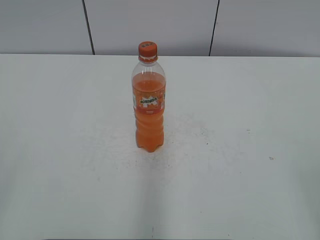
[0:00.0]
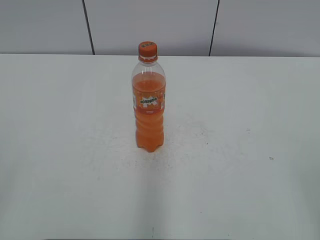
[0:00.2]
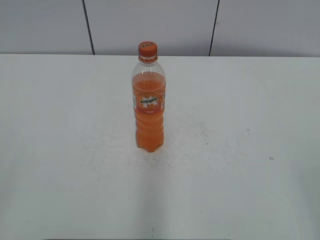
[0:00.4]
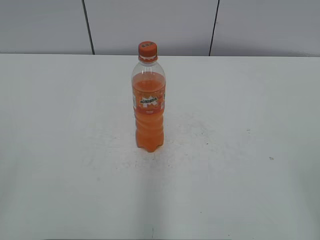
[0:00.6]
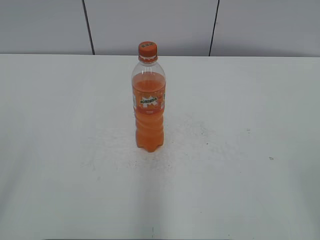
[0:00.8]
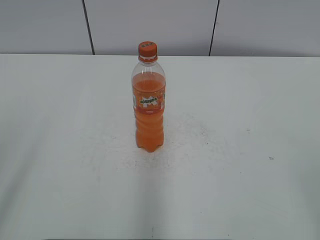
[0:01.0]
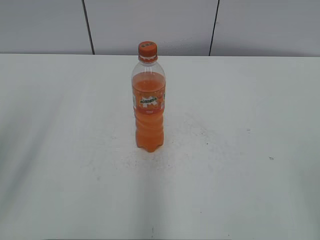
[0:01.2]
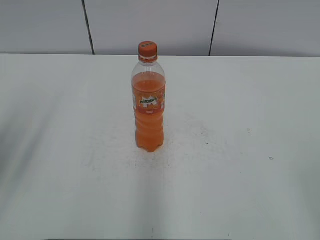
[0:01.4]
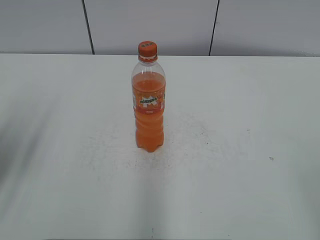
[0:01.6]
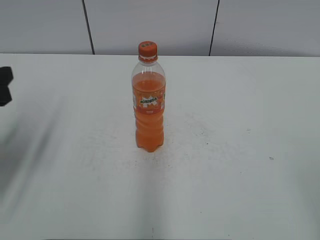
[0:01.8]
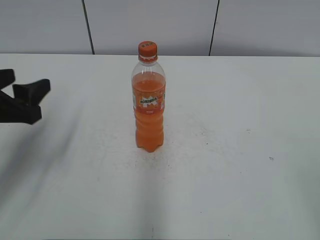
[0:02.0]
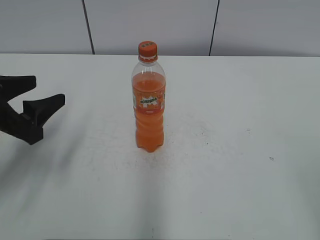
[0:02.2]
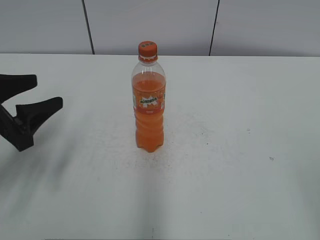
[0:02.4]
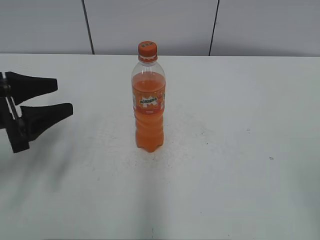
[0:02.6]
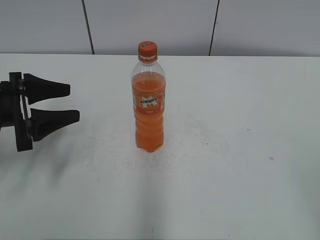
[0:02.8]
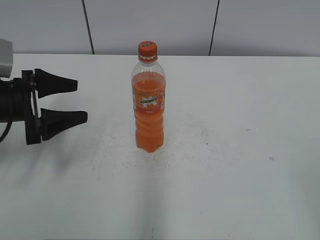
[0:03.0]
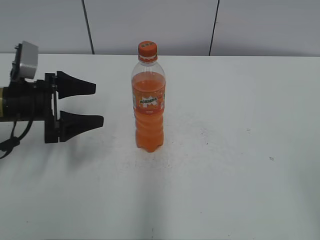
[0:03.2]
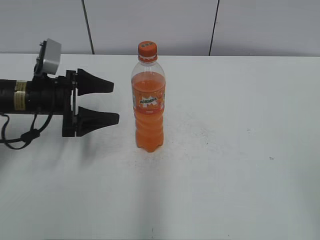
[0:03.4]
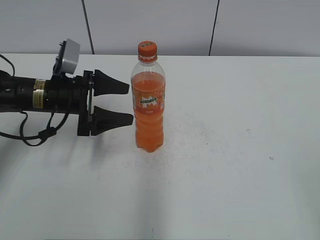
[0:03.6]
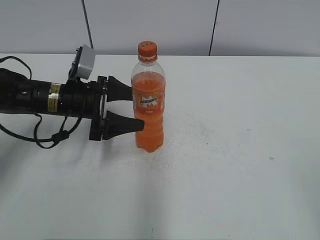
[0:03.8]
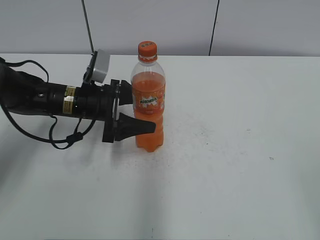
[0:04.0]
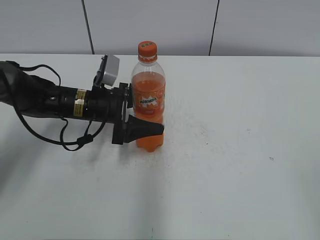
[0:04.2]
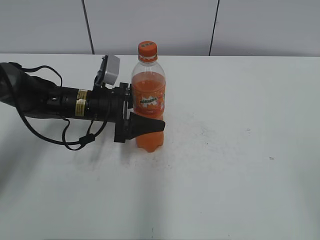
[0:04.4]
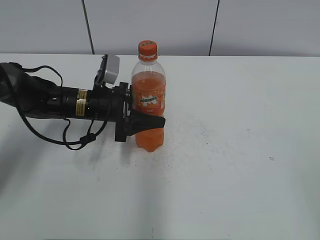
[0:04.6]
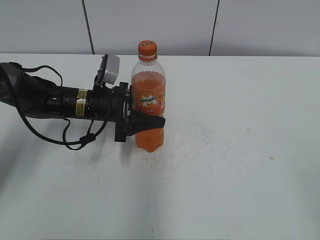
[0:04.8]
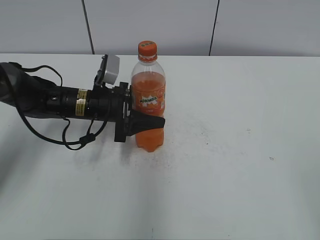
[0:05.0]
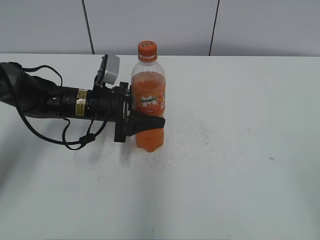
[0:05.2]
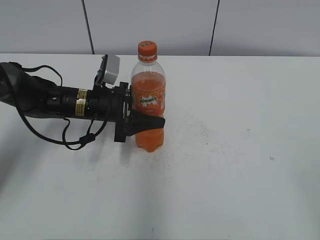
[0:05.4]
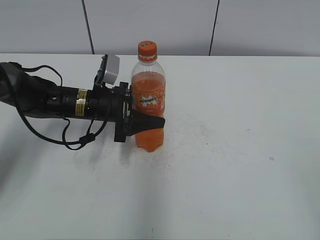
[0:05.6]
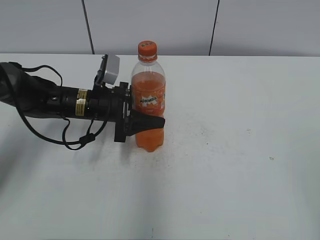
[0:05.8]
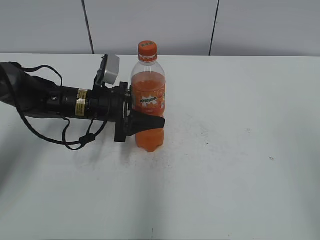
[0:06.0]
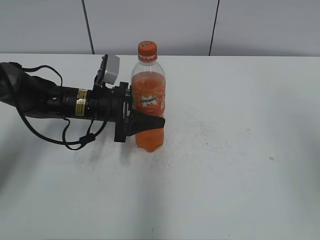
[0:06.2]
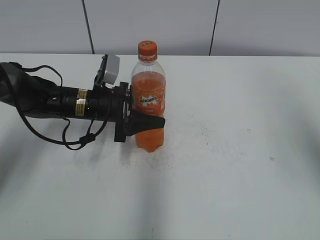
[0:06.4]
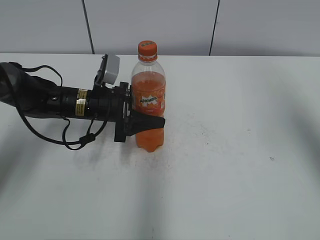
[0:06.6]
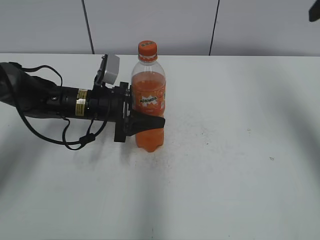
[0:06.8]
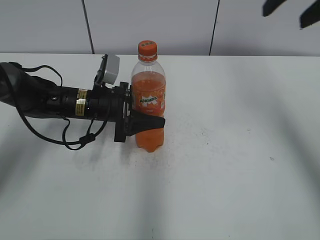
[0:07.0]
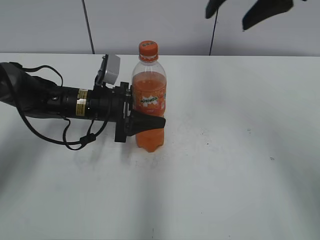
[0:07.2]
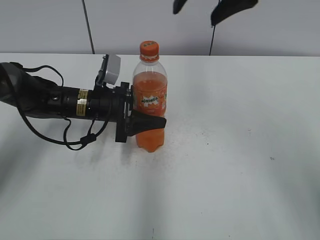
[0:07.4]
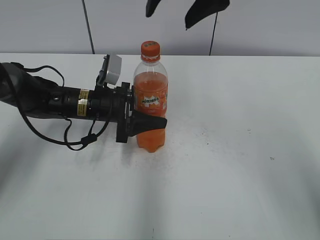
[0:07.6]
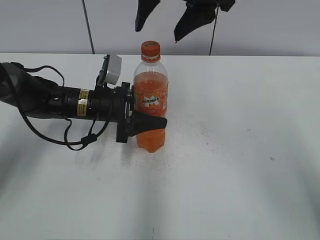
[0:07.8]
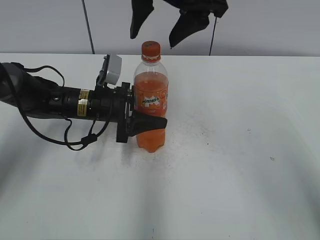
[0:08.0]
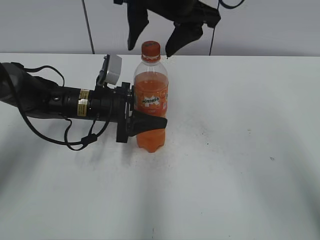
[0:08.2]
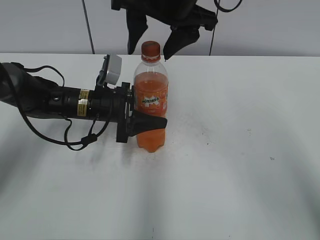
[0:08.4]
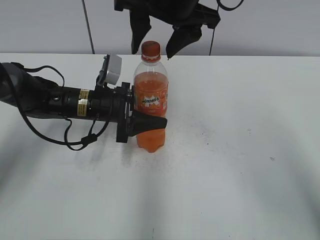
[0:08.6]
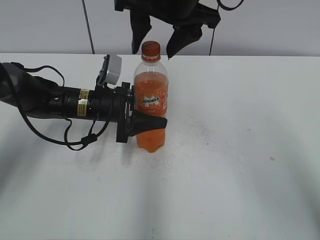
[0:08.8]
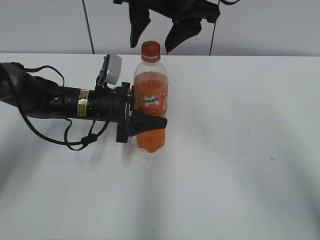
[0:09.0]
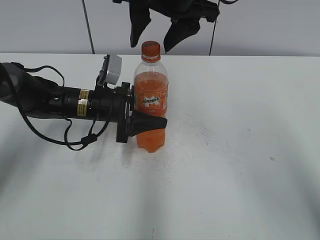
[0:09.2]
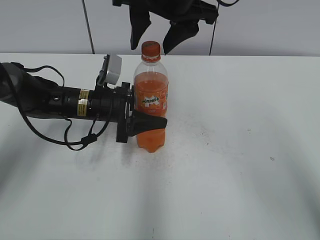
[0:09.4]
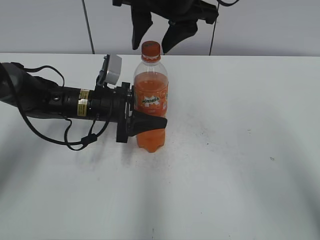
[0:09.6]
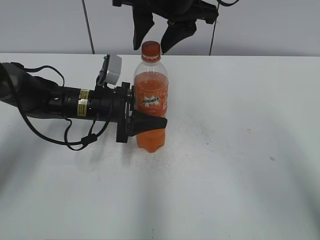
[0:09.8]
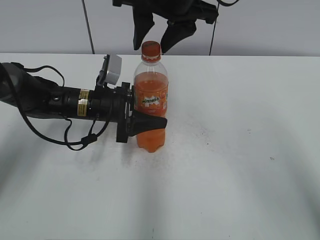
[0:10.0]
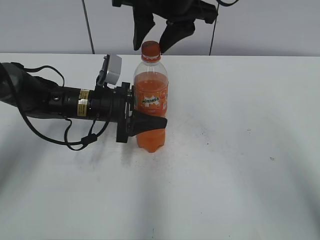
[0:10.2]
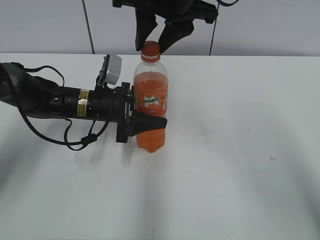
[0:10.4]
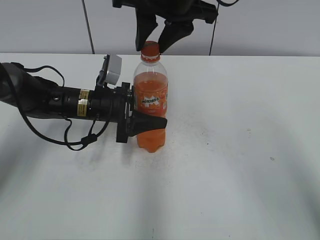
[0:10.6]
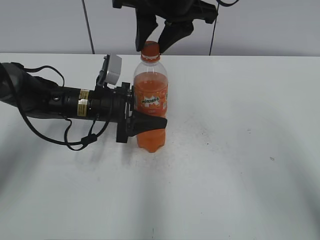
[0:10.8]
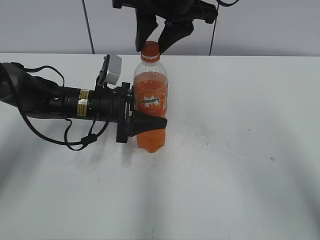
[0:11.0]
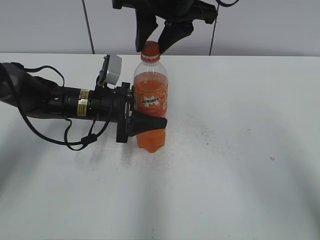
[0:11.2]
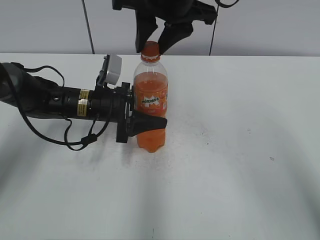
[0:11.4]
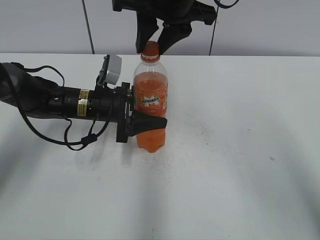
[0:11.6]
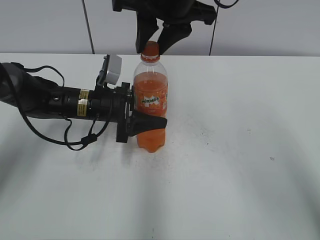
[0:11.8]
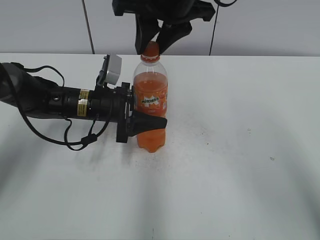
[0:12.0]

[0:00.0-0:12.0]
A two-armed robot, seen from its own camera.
Step, 0:00.0 to 0:04.8: Grab the Mirinda with the left hand.
0:01.6 to 0:03.0: The left gripper shifts about 15 cm forward and downward.
0:03.0 to 0:04.4: The left gripper goes about 15 cm to the right, forward and downward, and opens, then closes once more.
0:06.0 to 0:07.6: The right gripper moves forward and to the left, approximately 40 cm.
0:07.6 to 0:09.0: The right gripper moves approximately 5 cm.
0:09.0 to 0:10.4: The right gripper closes its fingers.
0:10.4 to 0:12.0: There are only small adjustments of the grippers.

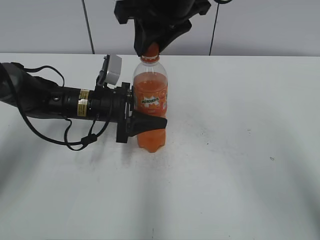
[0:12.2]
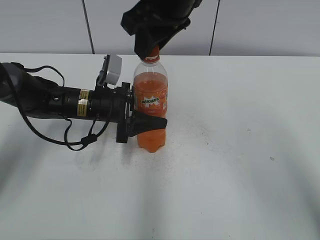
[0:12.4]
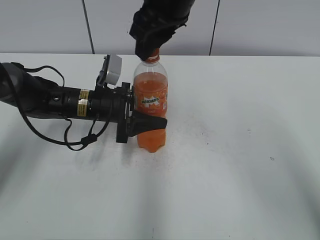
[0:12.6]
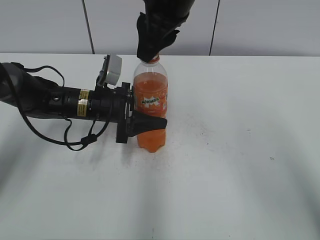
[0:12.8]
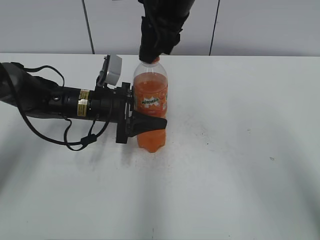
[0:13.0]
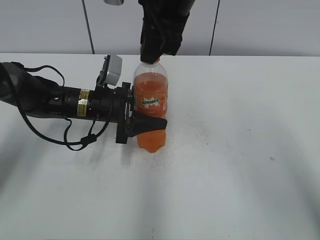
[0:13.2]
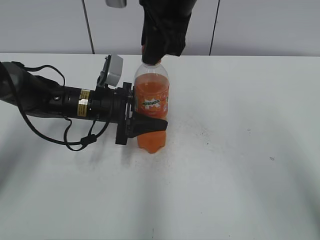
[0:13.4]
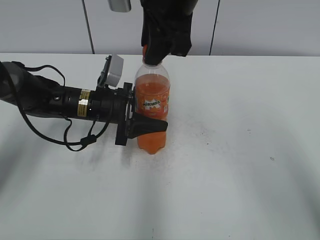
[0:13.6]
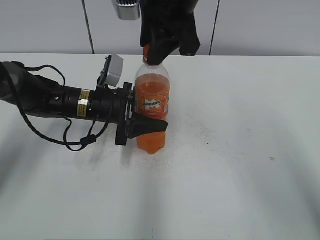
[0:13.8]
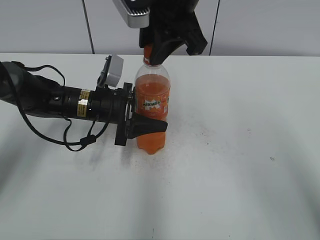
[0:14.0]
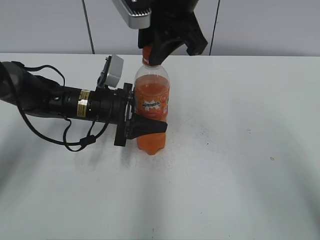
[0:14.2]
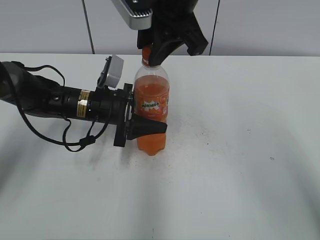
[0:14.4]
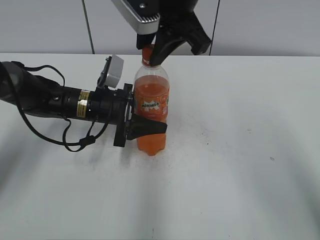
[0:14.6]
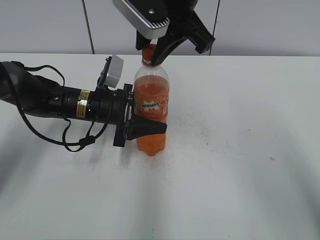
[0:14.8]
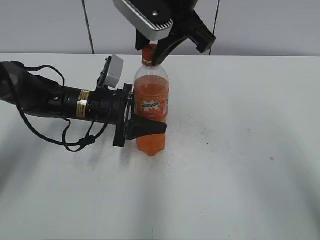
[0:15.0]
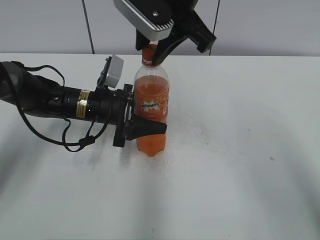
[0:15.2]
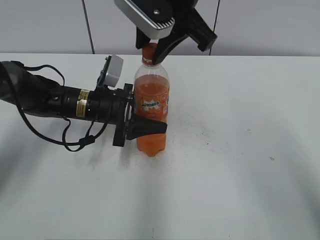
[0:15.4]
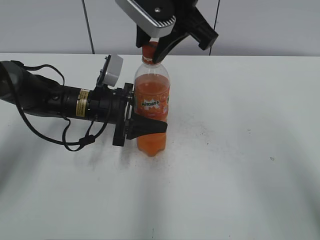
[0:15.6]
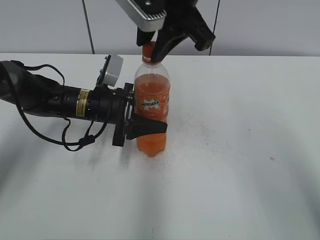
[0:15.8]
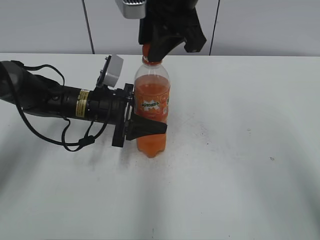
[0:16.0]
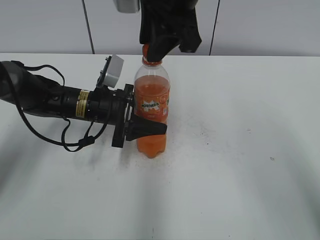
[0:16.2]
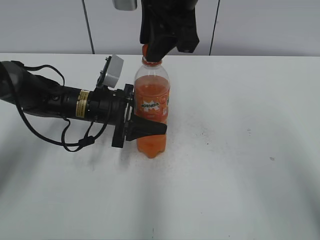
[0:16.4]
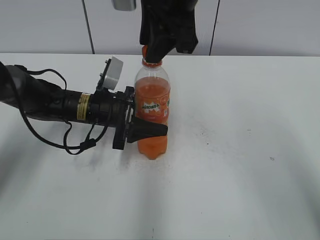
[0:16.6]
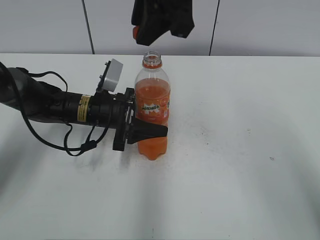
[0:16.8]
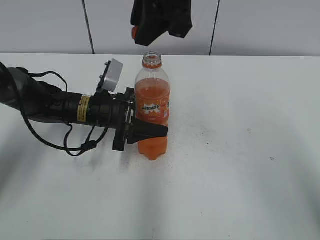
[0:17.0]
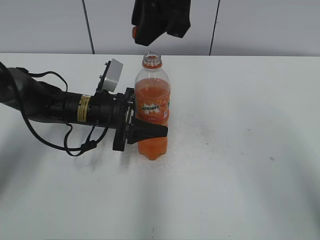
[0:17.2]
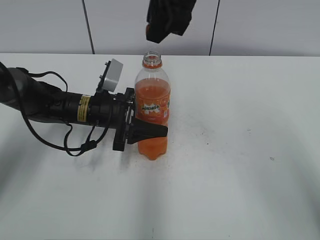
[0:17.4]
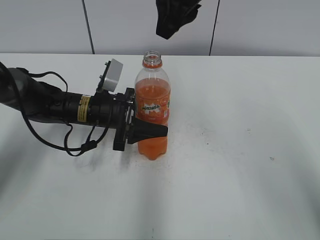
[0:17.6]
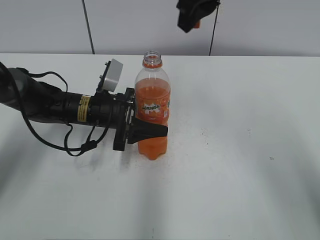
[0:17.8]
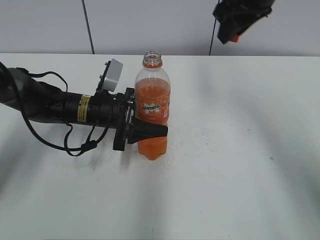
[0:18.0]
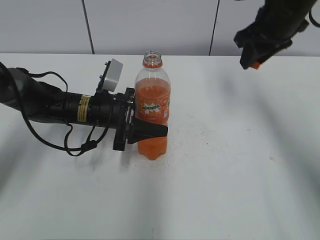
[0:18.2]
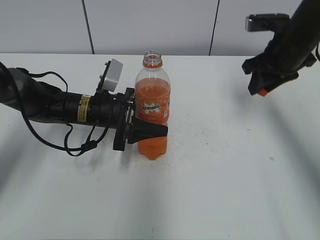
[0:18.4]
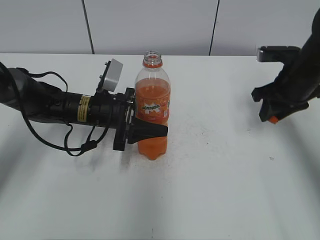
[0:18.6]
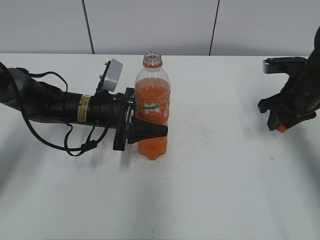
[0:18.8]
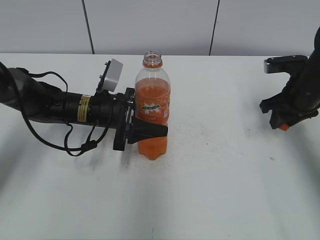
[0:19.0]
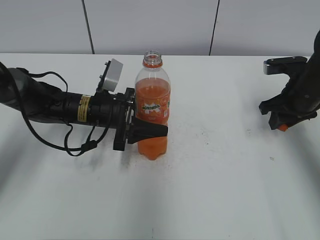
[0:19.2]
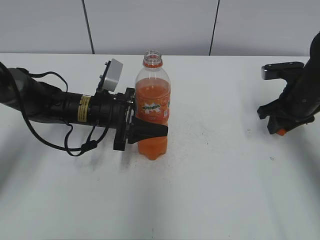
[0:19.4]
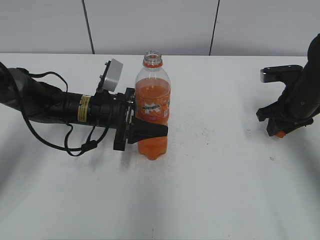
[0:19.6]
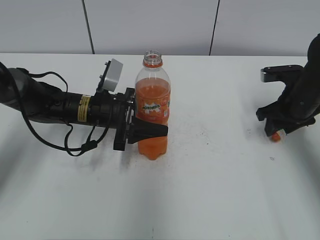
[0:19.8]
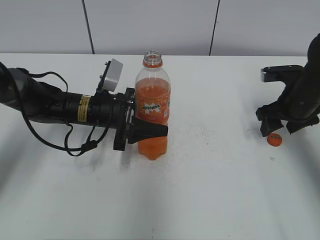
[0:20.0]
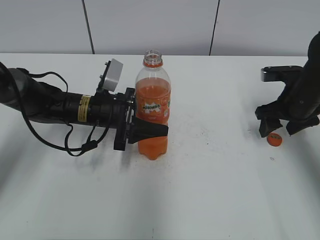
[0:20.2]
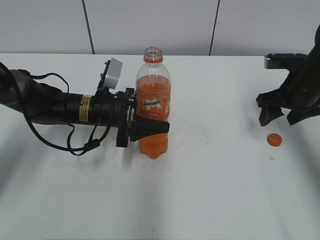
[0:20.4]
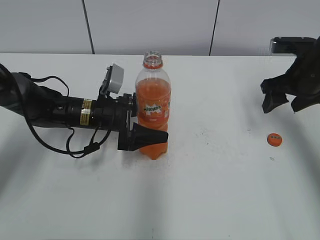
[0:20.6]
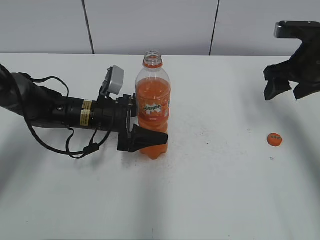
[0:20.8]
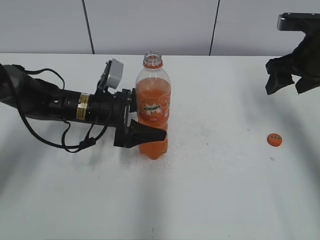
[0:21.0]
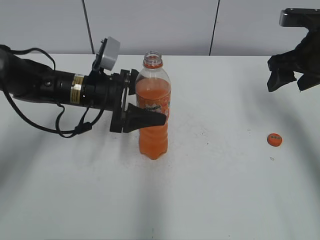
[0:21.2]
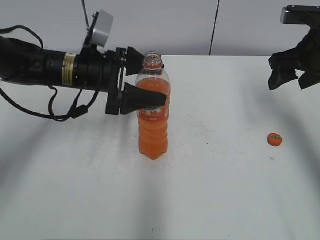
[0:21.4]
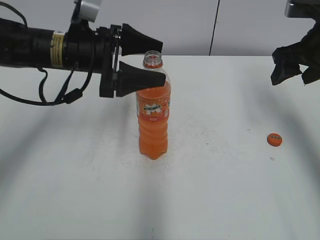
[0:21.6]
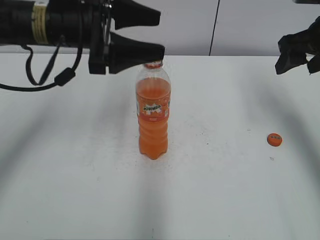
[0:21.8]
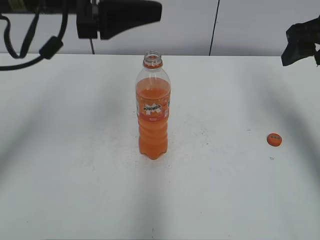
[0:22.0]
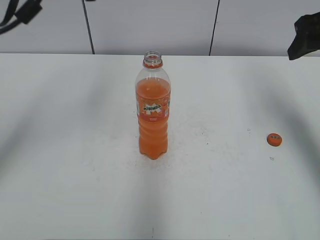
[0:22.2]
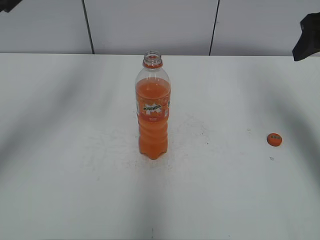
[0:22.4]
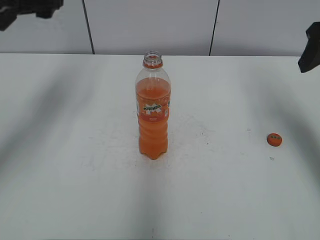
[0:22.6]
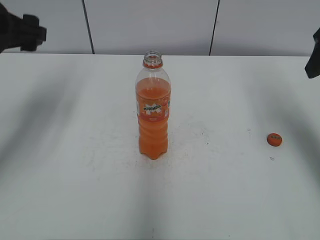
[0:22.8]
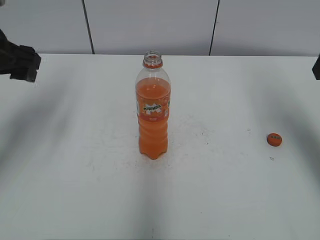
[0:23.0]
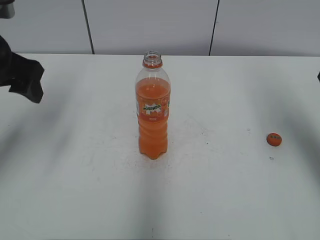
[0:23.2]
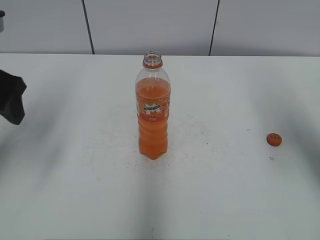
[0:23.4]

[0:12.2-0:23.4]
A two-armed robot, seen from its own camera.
Step, 0:12.2 to 0:16.6: Fix the Mirinda on the left.
Step, 0:16.8 to 0:19.8: Place the bottle cap on the right.
Step, 0:20.0 to 0:20.6: Place the Mirinda with the left hand.
0:17.0 to 0:18.6: The right gripper moves to the right and downward, about 30 cm.
0:18.6 to 0:20.2: The right gripper shifts by approximately 5 cm, and opens.
0:20.2 to 0:21.8: The grippers both shift upward by some 15 cm. The left gripper opens.
0:21.8 to 0:23.4: The right gripper goes about 10 cm backward and upward. Meanwhile the left gripper goes some 15 cm to the left and backward.
